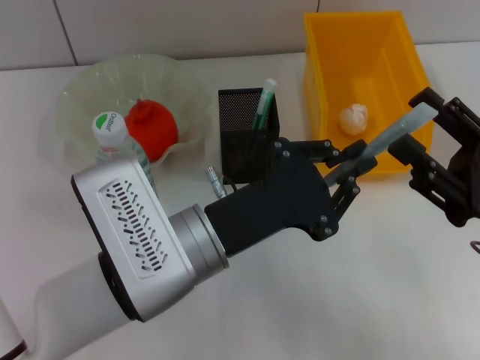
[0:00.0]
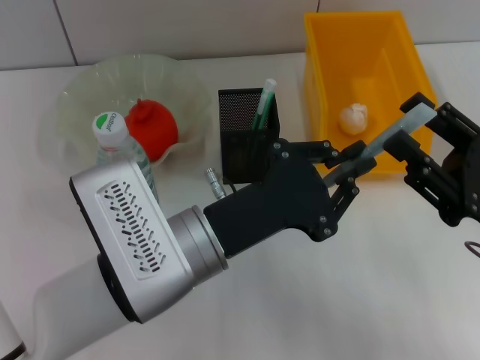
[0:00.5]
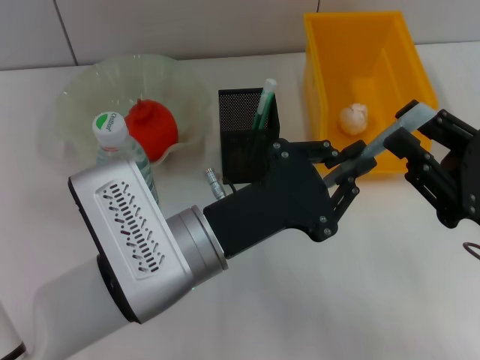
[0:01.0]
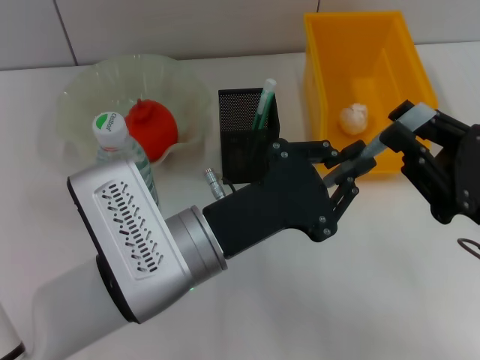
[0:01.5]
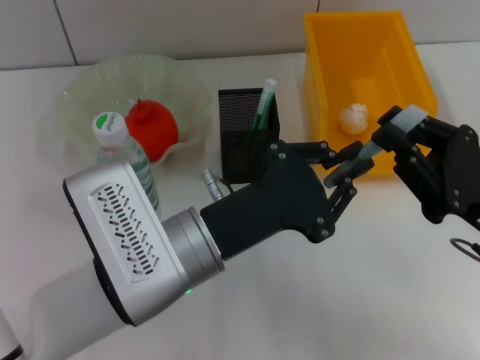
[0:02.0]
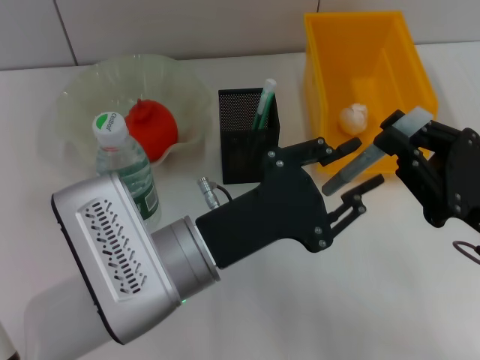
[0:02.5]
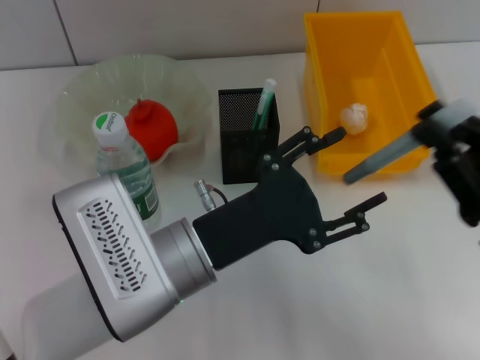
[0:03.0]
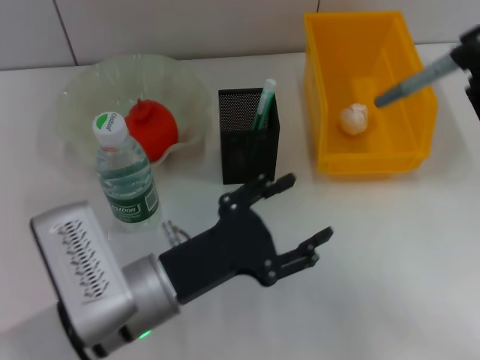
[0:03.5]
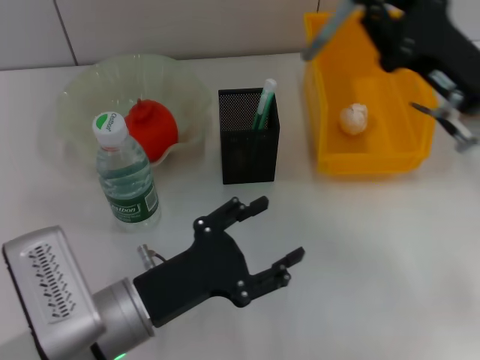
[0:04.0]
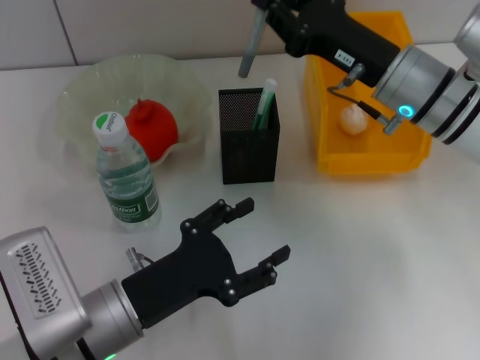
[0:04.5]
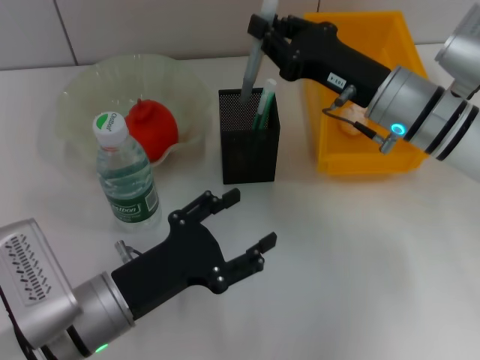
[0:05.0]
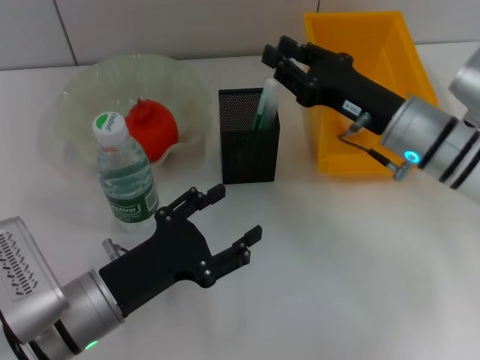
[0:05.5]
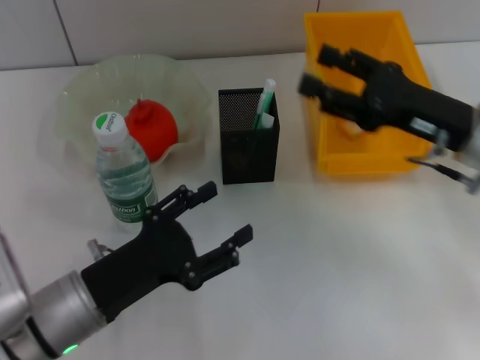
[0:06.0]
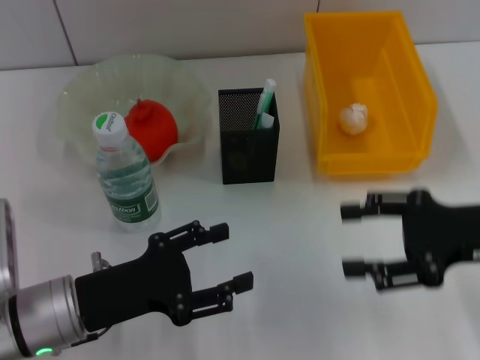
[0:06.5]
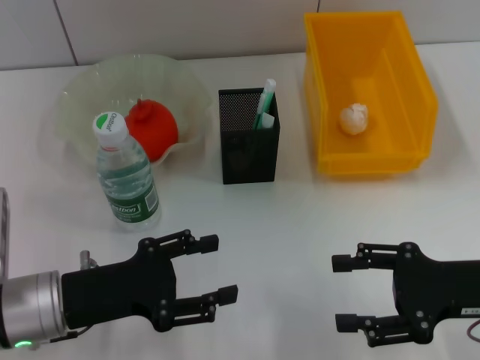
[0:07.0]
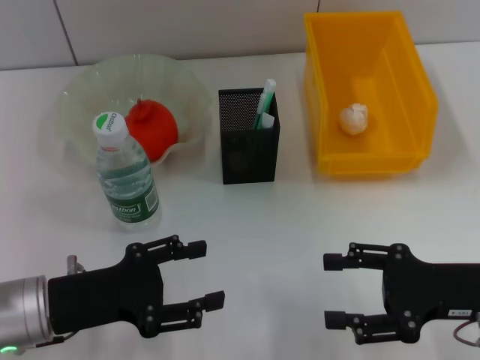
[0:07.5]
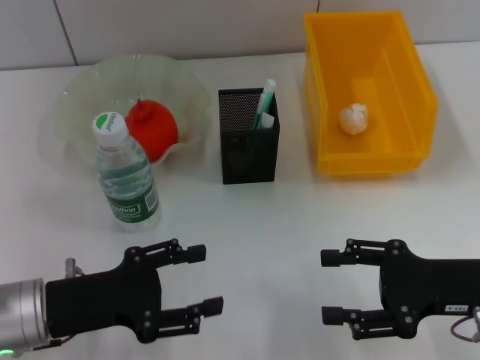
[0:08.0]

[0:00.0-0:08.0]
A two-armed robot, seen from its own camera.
Step, 0:00.0 to 0:02.0: Pass the gray glue from the left hand to the right hand.
Step, 0:02.5 to 0:05.5: Place the gray glue into the pen holder with the right hand.
0:00.0 to 0:02.0: The right gripper closes up.
0:02.0 to 0:04.0: The left gripper goes roughly 10 cm to the left and downward, and opens; the right gripper shifts some 10 cm forward.
0:04.0 to 0:06.0: The right gripper opens its fingers.
0:06.0 to 0:08.0: The right gripper goes approximately 10 cm backward and downward; the left gripper changes place by some 5 cm.

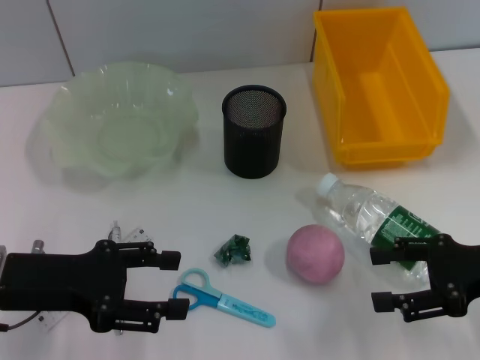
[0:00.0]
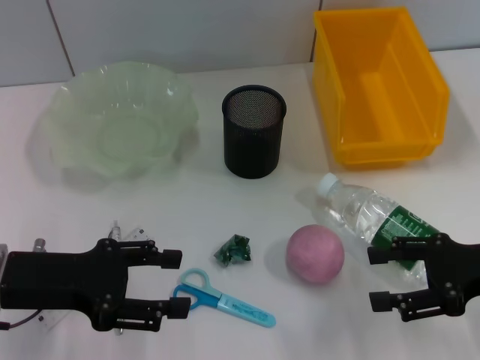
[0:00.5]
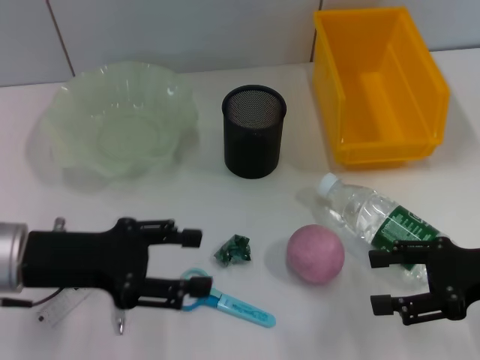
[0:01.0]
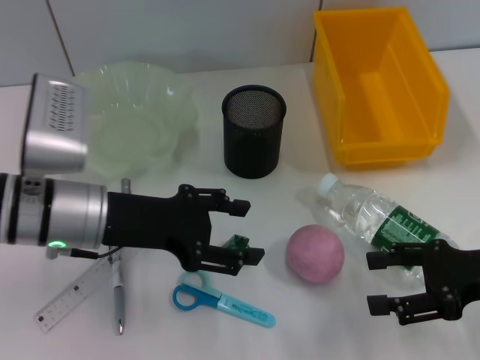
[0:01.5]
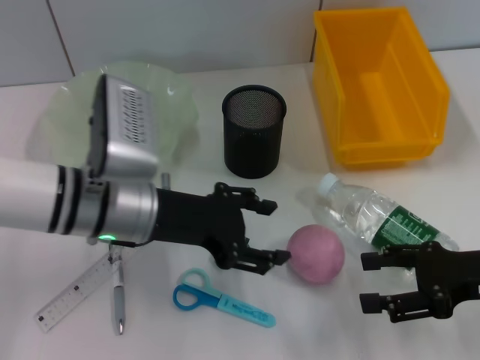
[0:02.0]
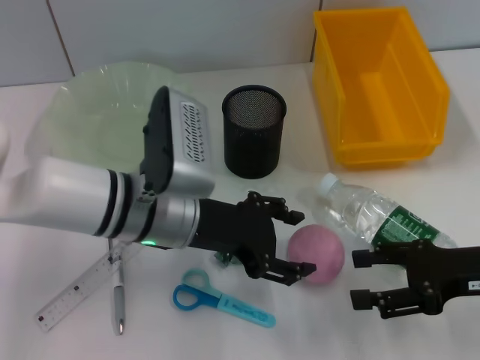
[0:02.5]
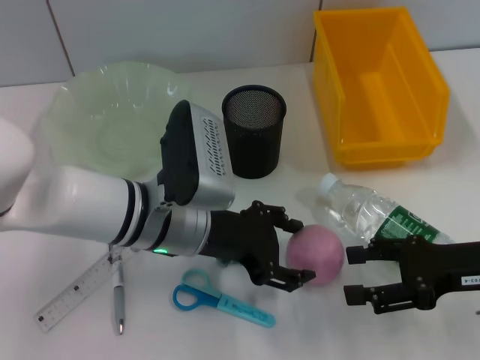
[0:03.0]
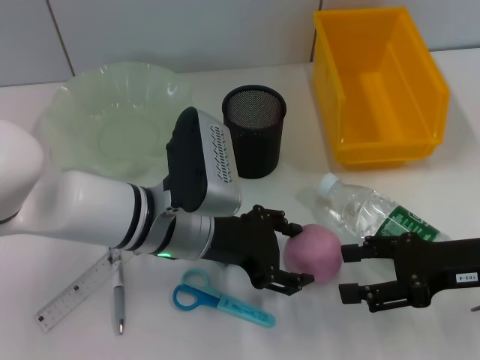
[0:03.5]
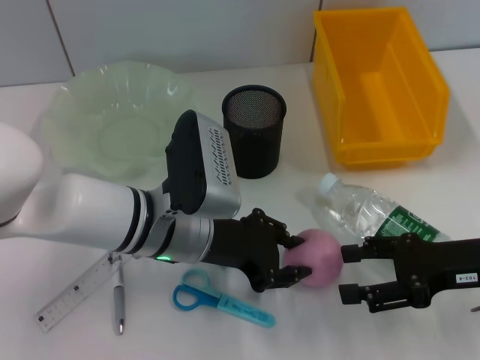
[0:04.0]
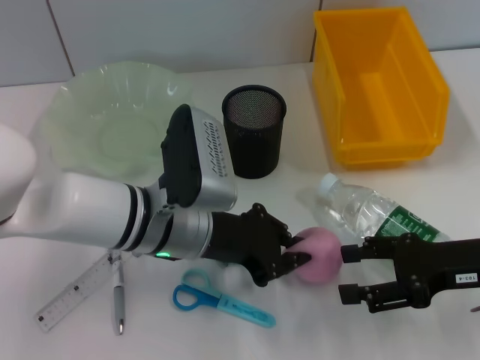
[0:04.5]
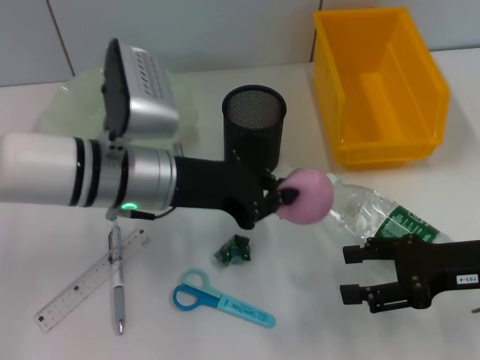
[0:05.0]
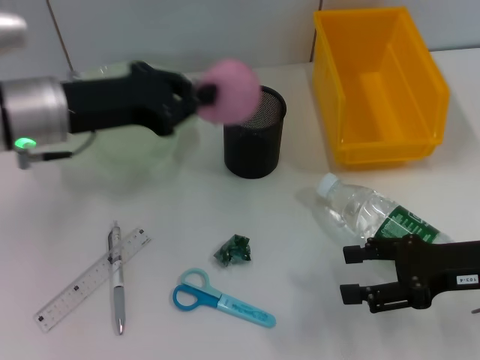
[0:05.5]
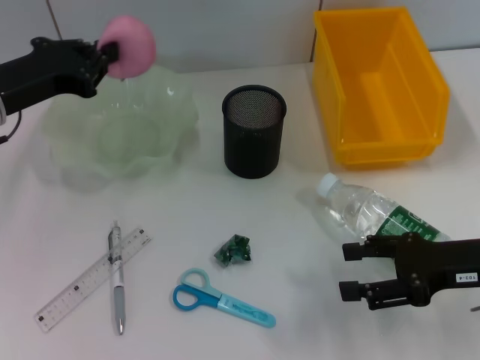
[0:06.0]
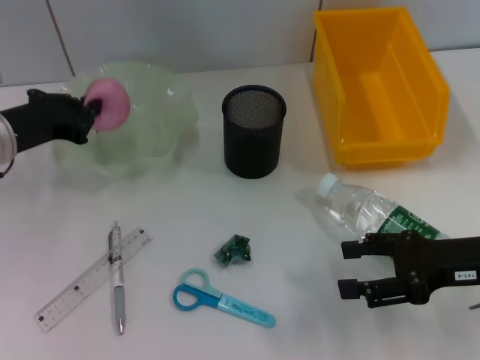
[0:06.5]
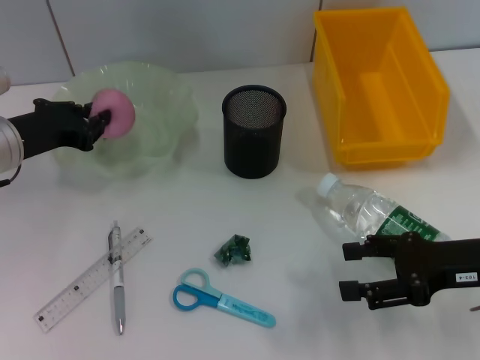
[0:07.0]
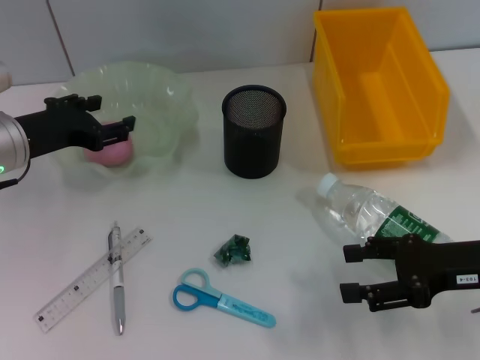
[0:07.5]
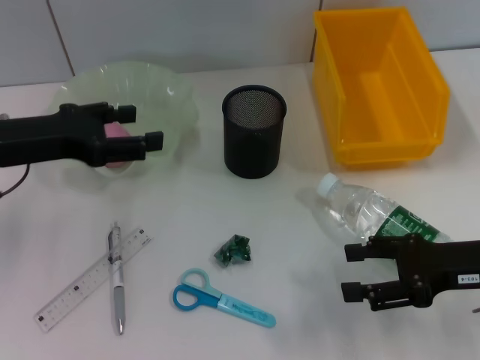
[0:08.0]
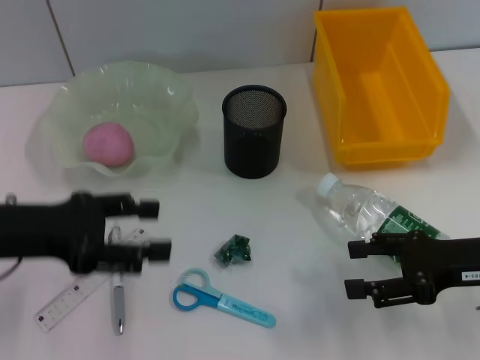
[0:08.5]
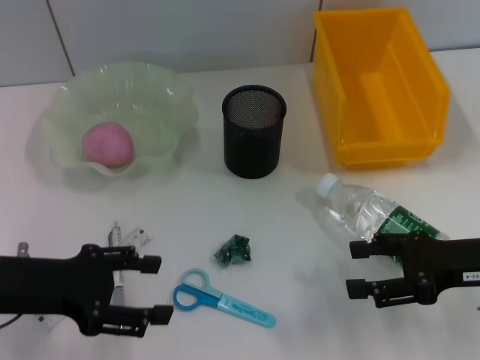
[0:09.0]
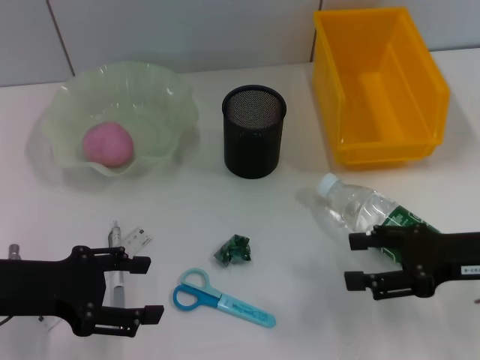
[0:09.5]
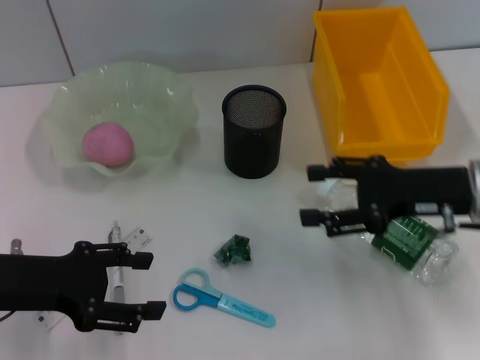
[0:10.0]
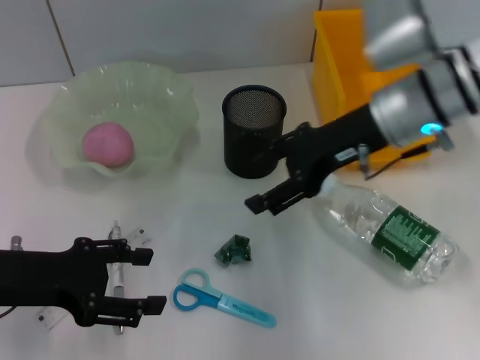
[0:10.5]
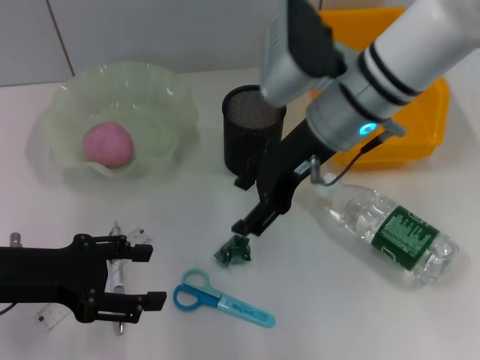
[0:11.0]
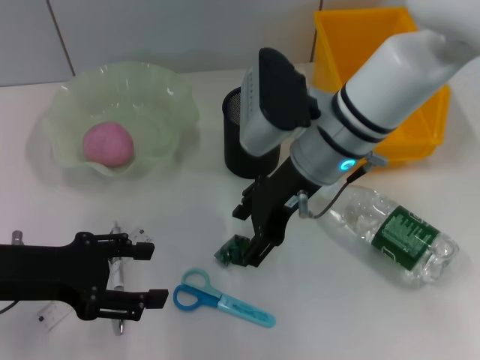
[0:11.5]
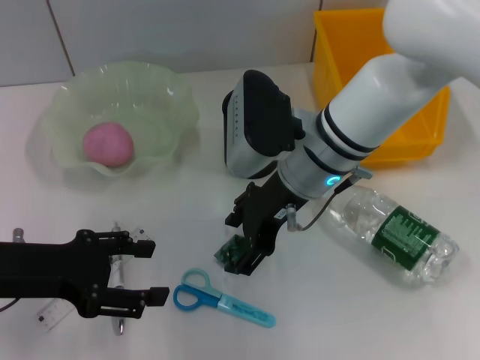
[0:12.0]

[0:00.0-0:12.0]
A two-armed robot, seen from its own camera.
Step, 0:00.0 to 0:04.0: Grab the peach with the left hand.
Step, 0:05.0 to 0:07.0: Place the peach into the fruit bowl with the left hand.
0:00.0 to 0:02.0: The left gripper travels to the right and forward by some 15 cm.
0:02.0 to 0:04.0: The left gripper goes approximately 5 cm to the right.
0:04.0 to 0:06.0: The left gripper is displaced to the left and upward by some 20 cm, and closes.
0:06.0 to 0:08.0: The left gripper opens.
0:08.0 to 0:10.0: The left gripper heads backward, covering approximately 10 cm, while the right gripper is displaced forward by some 5 cm.
0:10.0 to 0:12.0: The right gripper moves to the left, some 15 cm.

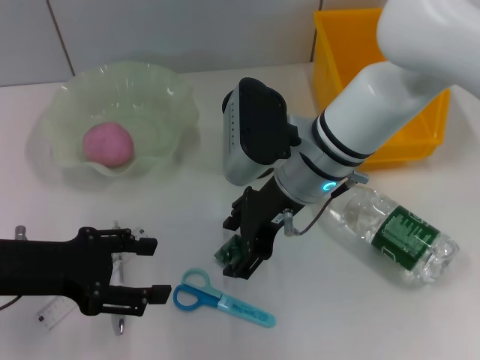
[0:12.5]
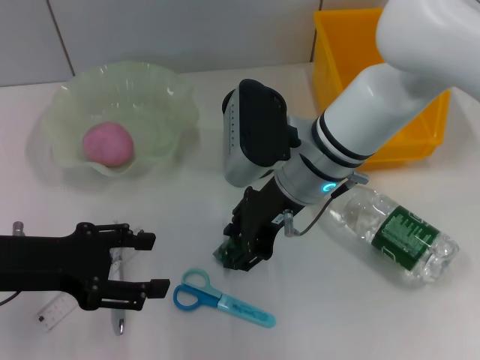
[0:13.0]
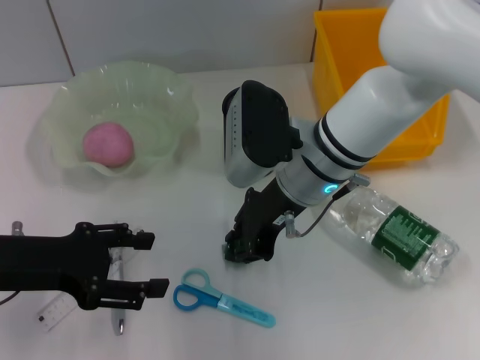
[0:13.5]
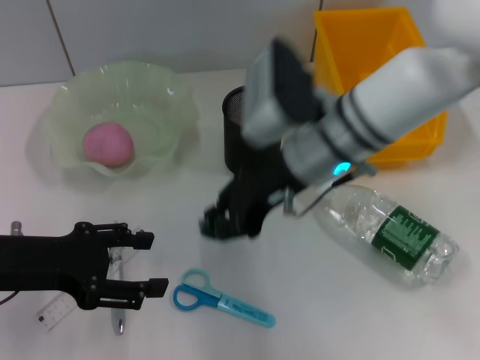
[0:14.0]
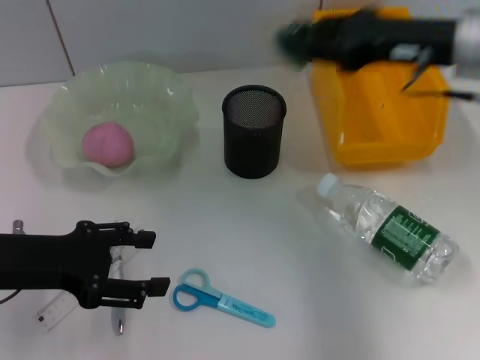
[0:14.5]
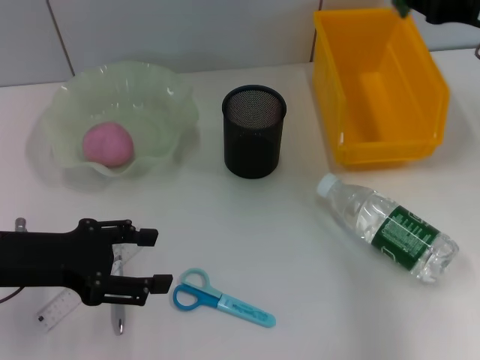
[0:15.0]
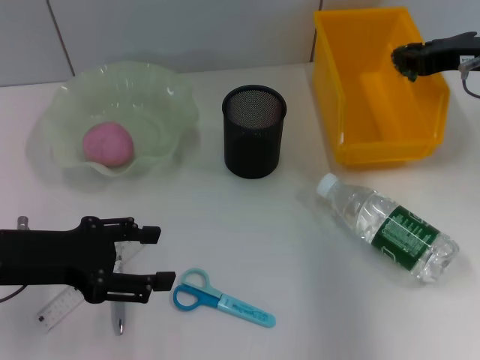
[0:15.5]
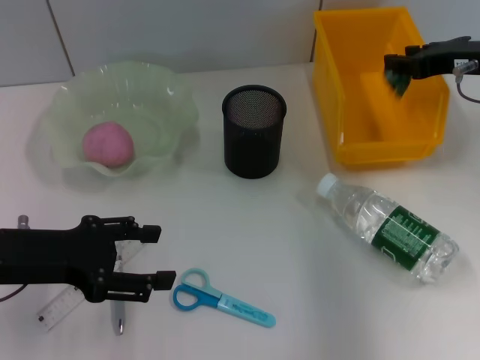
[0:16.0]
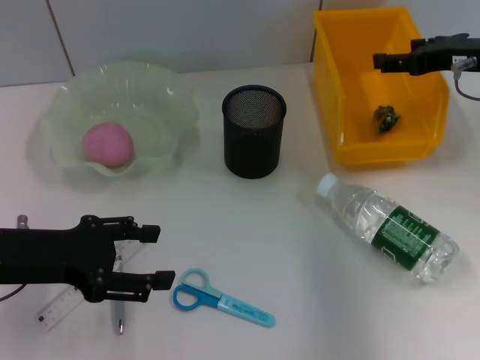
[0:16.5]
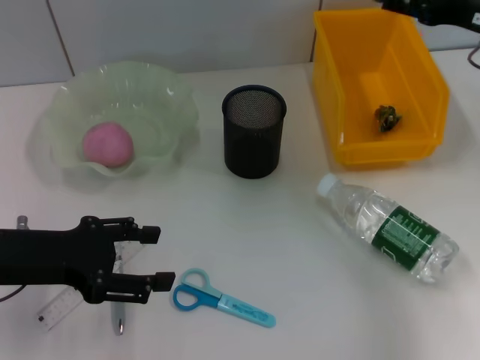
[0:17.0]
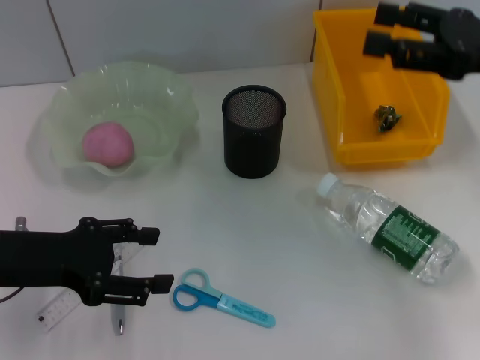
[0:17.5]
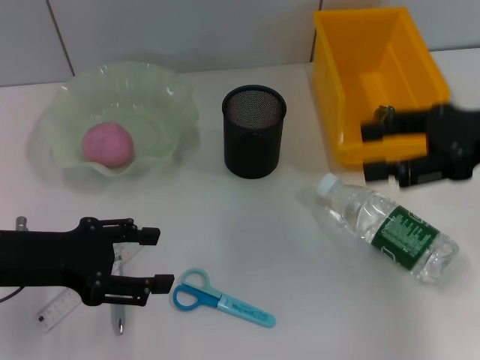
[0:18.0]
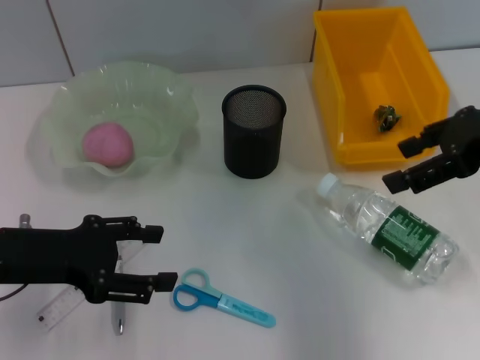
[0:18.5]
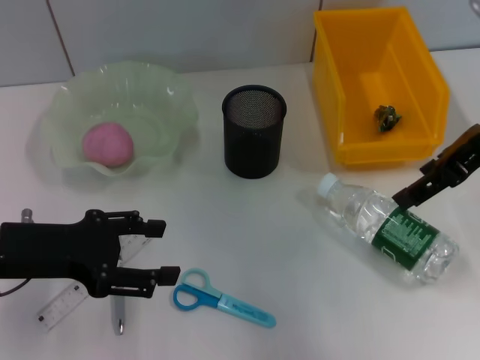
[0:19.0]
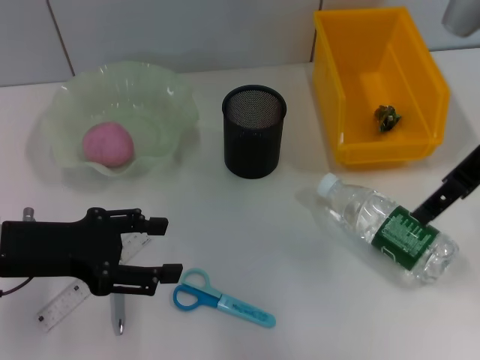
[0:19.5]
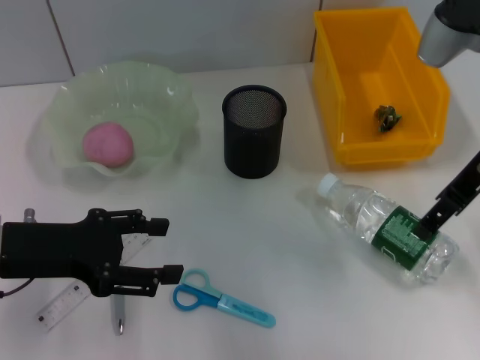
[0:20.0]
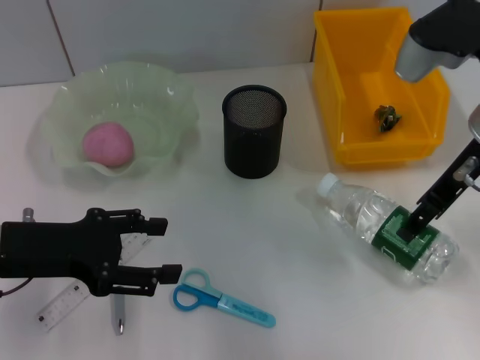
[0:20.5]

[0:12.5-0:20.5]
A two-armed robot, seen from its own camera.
Step, 0:13.5 to 0:16.0: Place the plastic into the trash can with the right hand.
0:12.5 to 0:14.5: The right gripper shifts roughly 20 cm to the right and upward, and closes its fingers.
0:14.5 to 0:16.5: The right gripper goes roughly 5 cm to the right, and opens its fingers.
0:16.5 to 0:18.5: The right gripper is displaced backward and upward by roughly 10 cm.
0:18.5 to 0:20.5: The right gripper travels to the left by approximately 5 cm.
